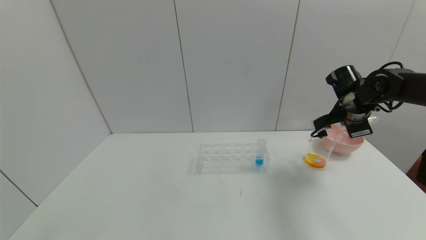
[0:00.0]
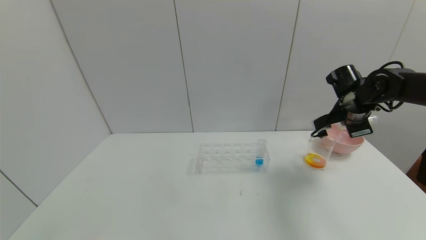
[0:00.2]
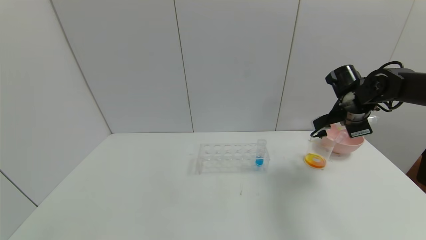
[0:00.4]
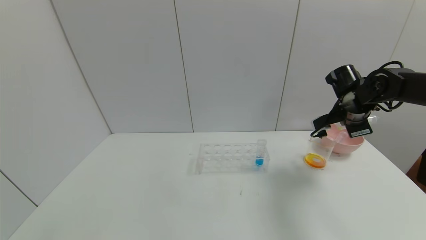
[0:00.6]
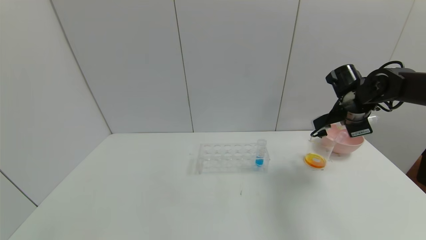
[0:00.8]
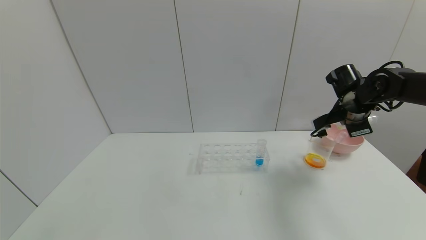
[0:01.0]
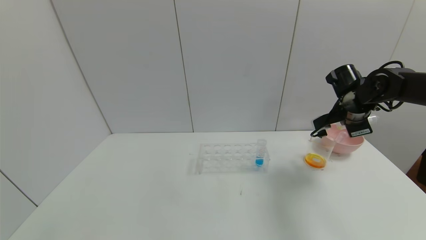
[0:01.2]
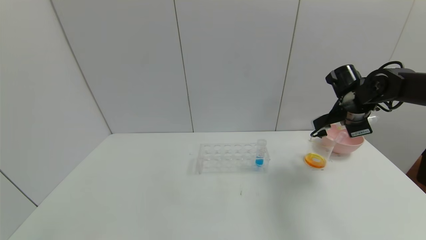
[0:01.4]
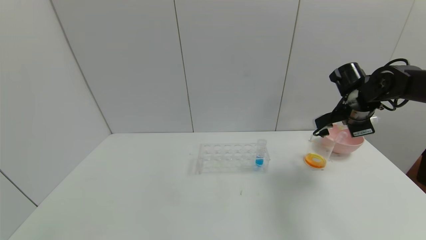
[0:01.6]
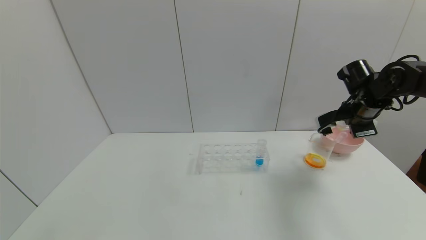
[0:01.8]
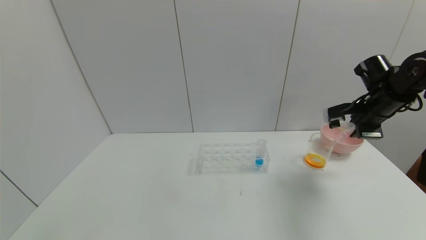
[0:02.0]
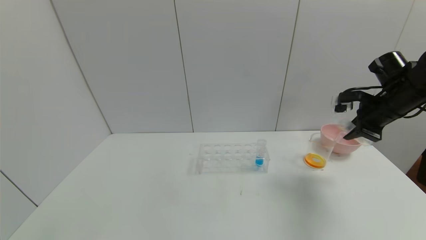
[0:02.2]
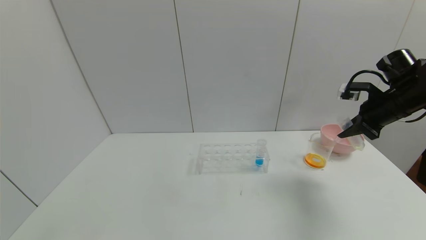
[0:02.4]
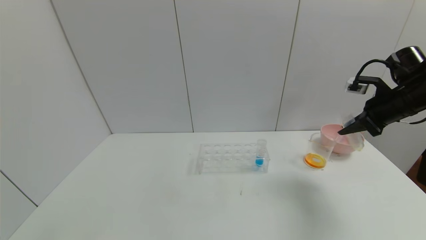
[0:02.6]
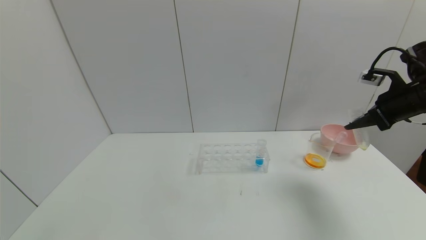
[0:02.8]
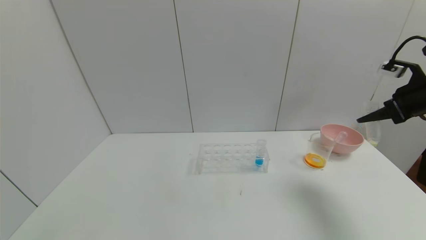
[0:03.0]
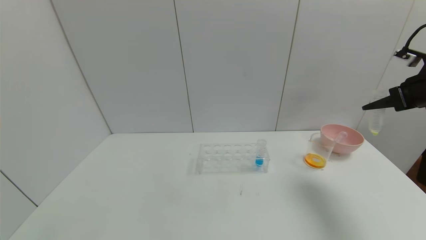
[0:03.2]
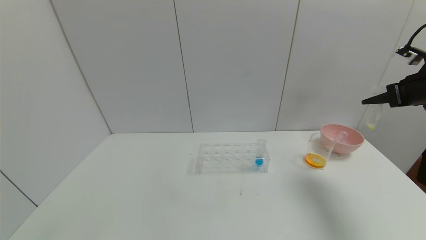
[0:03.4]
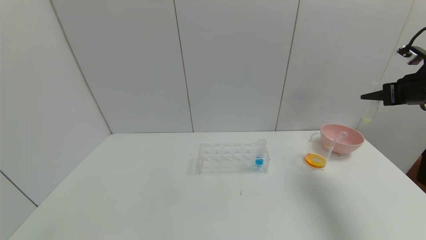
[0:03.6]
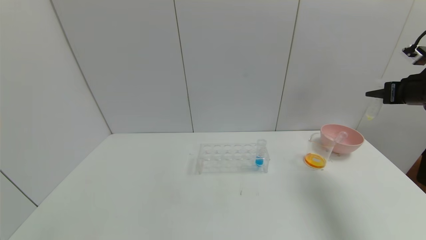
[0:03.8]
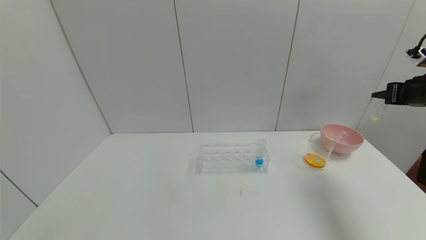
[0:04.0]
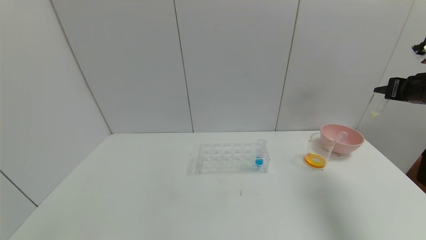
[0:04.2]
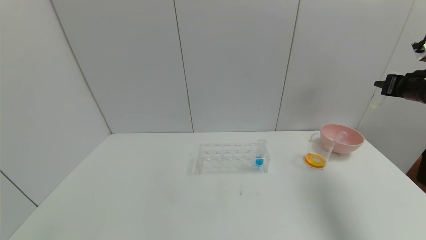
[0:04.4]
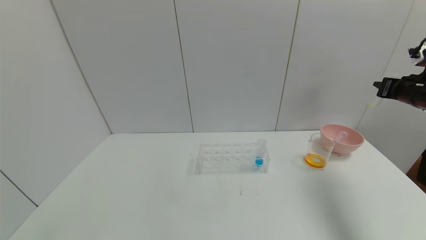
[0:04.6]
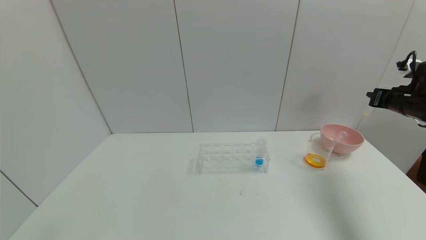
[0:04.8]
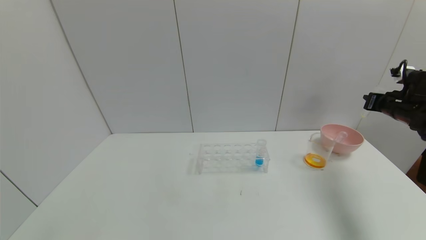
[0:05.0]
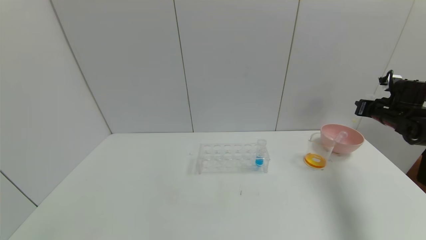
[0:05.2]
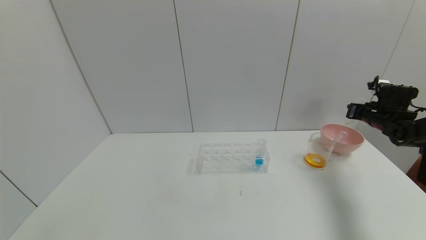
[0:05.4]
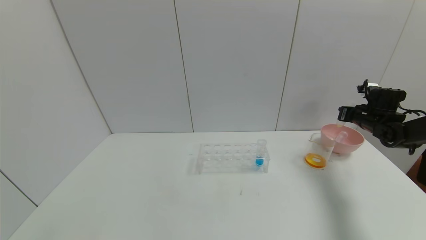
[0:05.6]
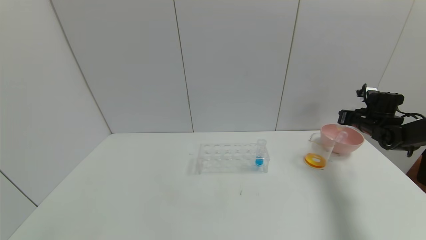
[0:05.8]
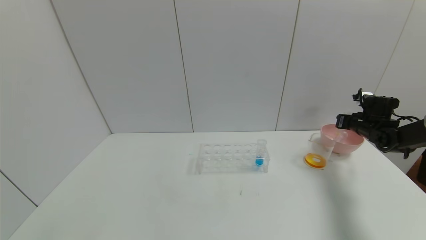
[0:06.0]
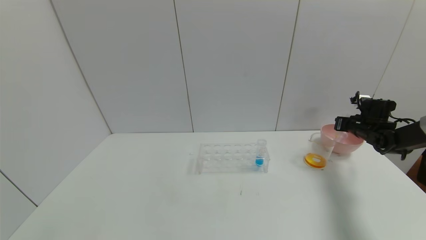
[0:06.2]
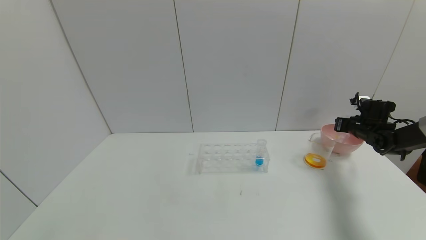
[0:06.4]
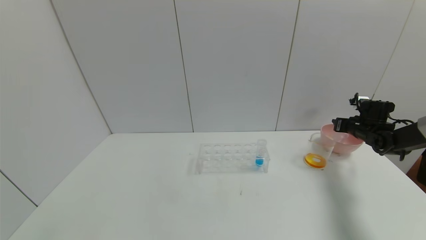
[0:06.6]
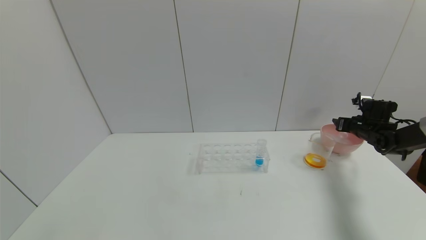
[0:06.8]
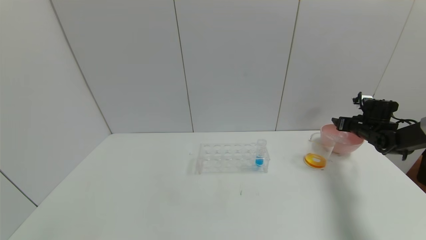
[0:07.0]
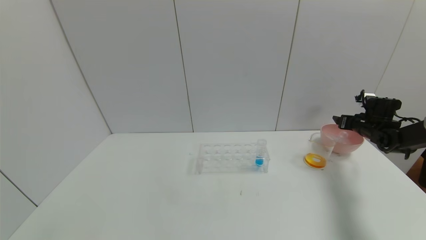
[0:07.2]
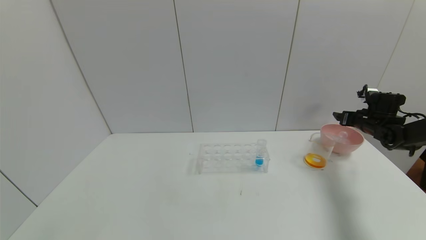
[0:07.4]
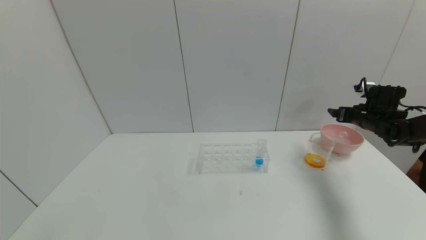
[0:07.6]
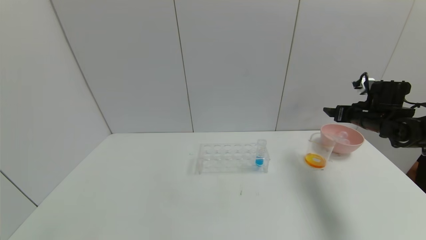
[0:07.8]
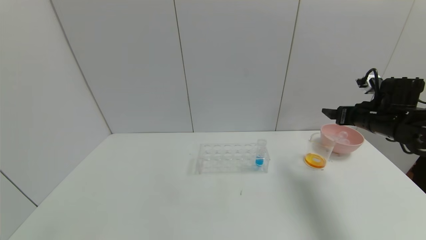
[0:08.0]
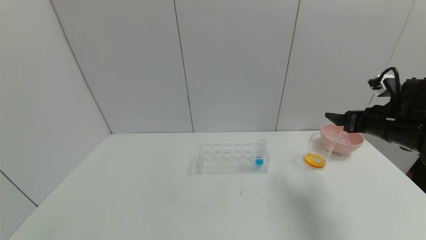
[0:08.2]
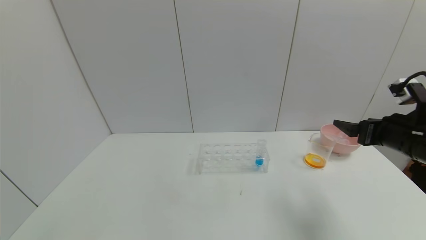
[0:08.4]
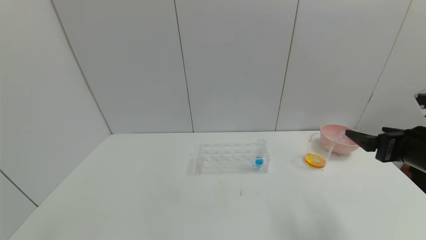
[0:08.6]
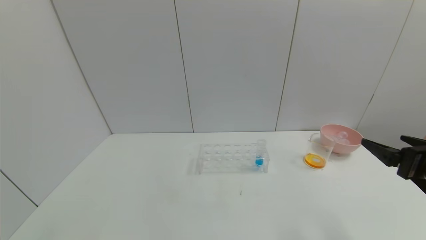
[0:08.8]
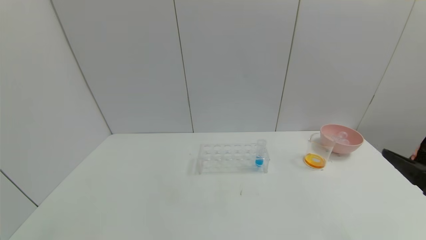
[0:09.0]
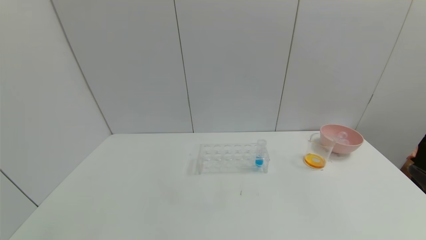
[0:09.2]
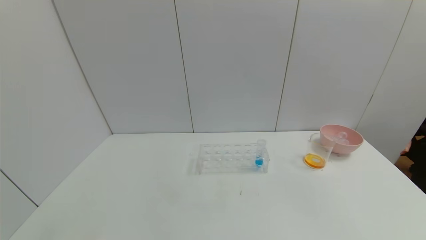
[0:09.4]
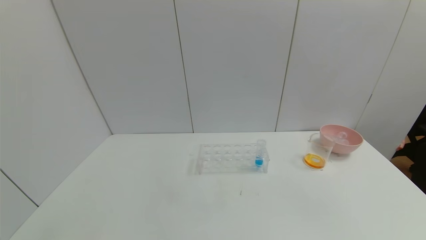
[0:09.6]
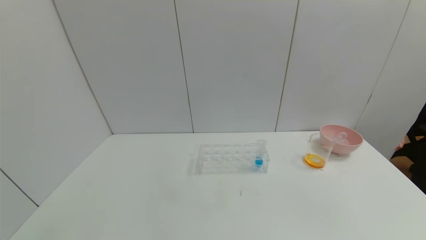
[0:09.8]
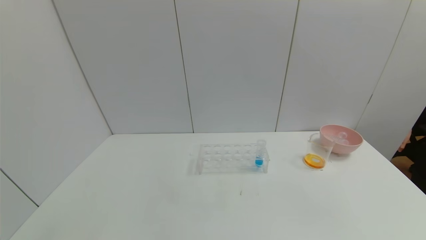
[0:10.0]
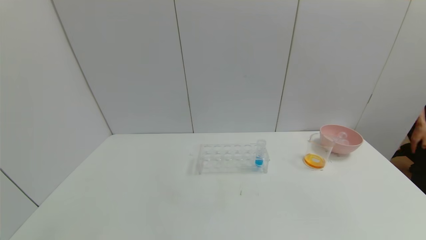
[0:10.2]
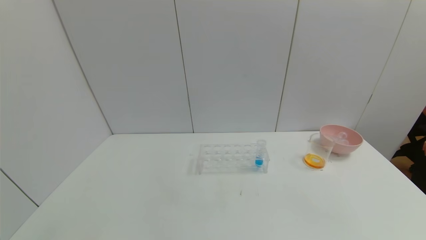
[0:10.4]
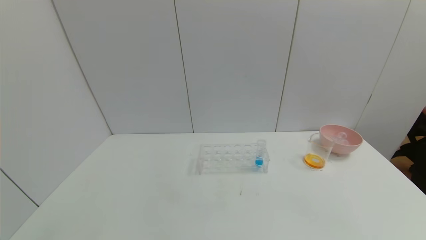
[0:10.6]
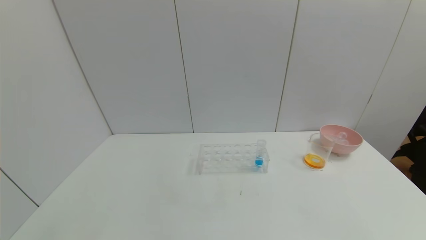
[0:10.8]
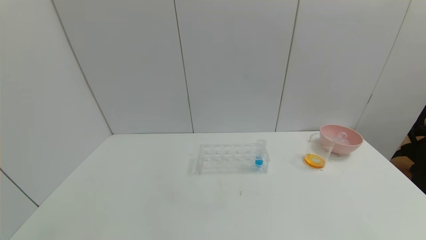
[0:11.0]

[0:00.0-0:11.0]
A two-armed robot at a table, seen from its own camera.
Task of the whole recording: pick up the test tube with yellow pigment and the test tube with red pigment by grippers and pour them into the beaker.
Step, 0:00.6 to 0:06.8: Place the test tube into the bowl with the right gripper.
0:00.0 to 0:01.6: Both grippers stay put.
0:01.6 to 0:03.2: The right gripper heads to the right, upward and backward, covering approximately 15 cm.
0:03.2 to 0:04.8: The right gripper heads downward and forward, covering roughly 10 cm.
0:04.8 to 0:06.2: The right gripper travels downward and forward by some 15 cm.
0:06.2 to 0:07.8: The right gripper moves upward, backward and to the left, roughly 10 cm, and opens up.
0:07.8 to 0:09.4: The right gripper goes roughly 40 cm backward.
